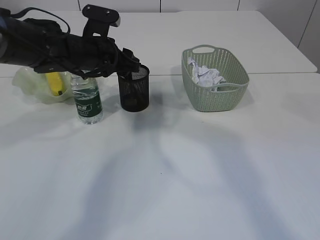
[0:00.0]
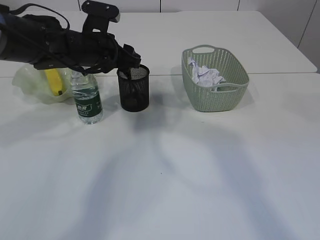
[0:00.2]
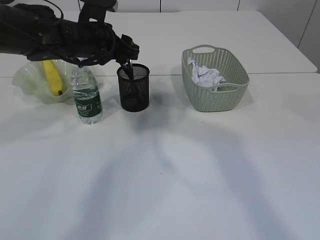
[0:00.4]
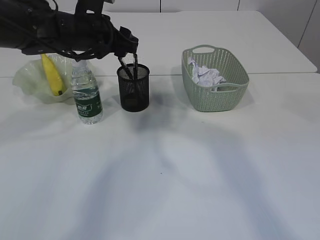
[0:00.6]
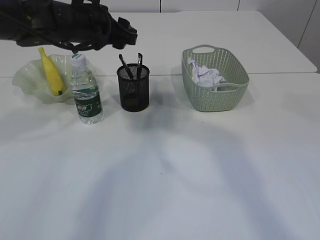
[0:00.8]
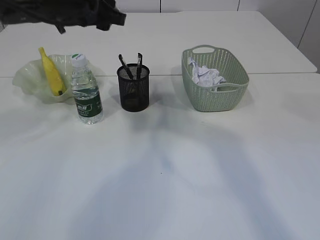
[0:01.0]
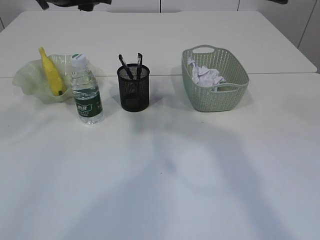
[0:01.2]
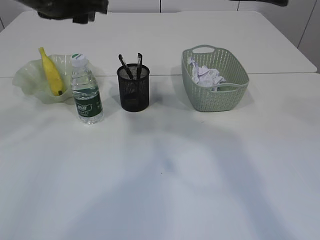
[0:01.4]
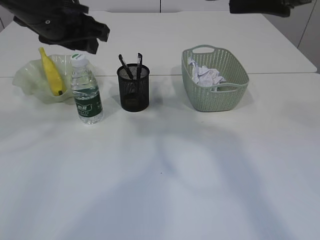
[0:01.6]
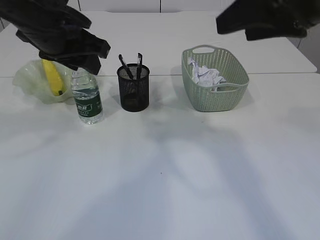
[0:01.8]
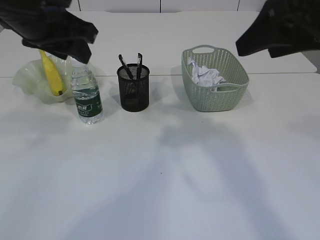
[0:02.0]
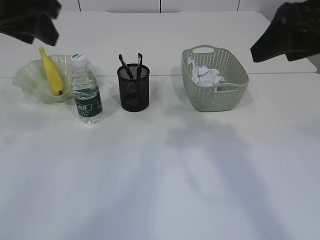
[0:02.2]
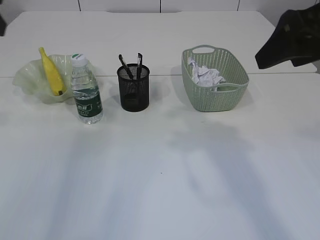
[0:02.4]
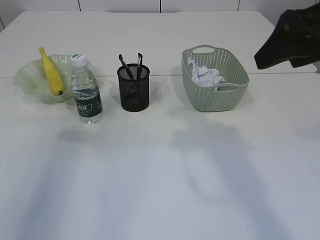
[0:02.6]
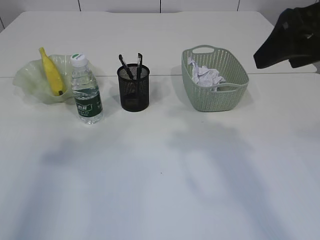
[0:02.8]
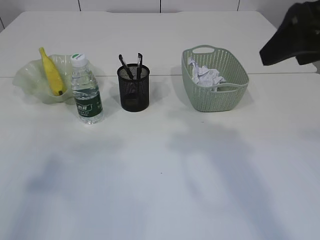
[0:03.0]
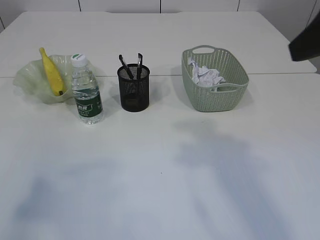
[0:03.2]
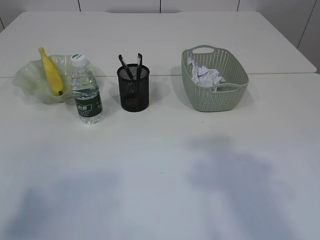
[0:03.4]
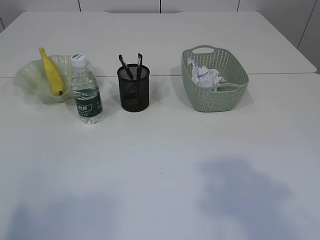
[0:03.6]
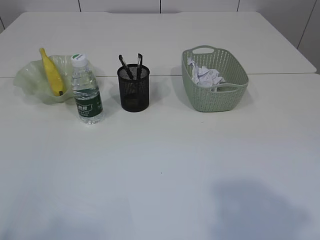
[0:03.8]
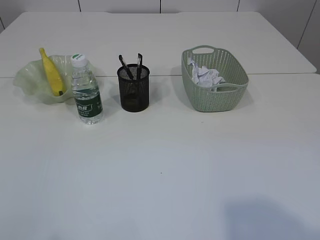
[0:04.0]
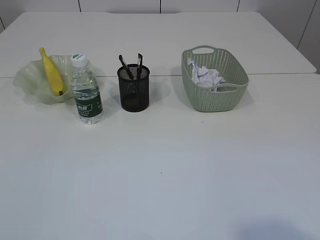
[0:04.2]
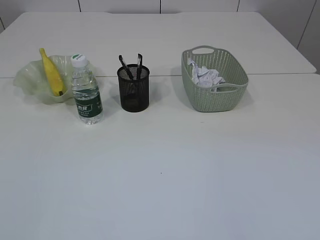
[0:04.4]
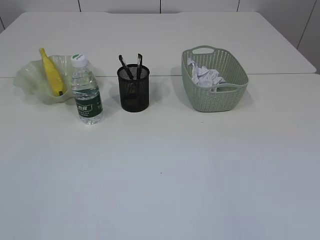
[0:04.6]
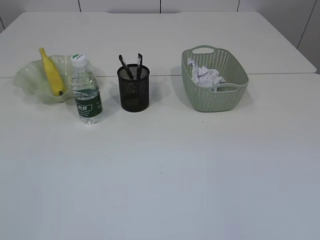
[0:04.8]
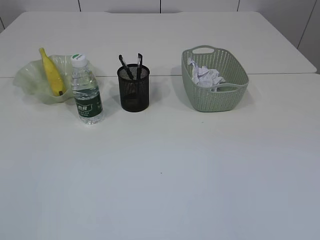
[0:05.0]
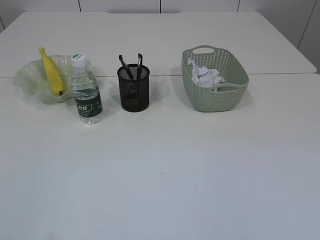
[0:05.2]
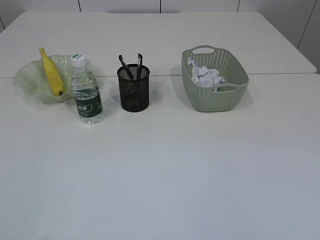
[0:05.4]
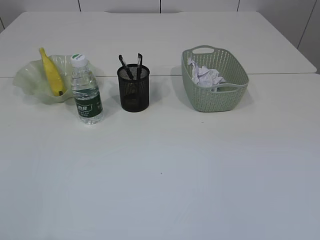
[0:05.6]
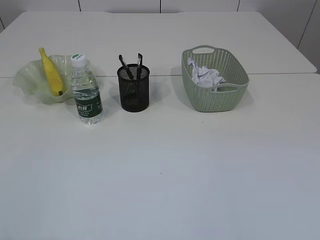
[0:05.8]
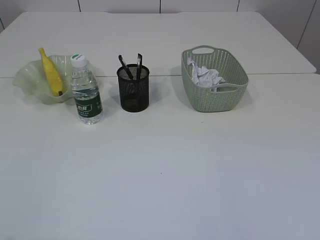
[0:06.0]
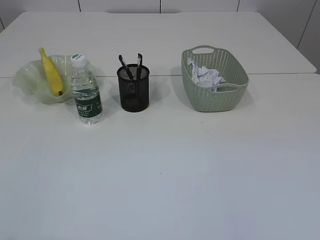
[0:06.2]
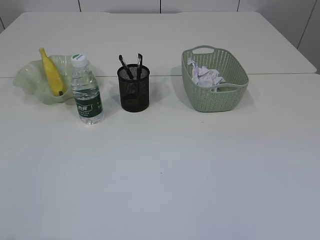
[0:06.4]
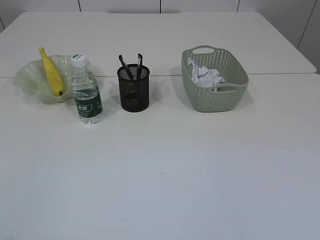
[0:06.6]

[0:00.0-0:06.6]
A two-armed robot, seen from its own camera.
0.0 to 1.6 s: The left gripper goes approximately 15 cm upward and backward.
1.6 to 3.2 s: The right gripper travels backward by about 5 cm. Meanwhile the left gripper is displaced backward and to the left by some 30 cm.
3.2 to 5.0 s: The right gripper travels backward by roughly 25 cm, while the left gripper is displaced backward and downward by about 15 cm.

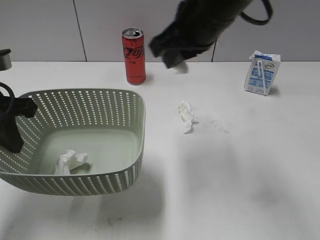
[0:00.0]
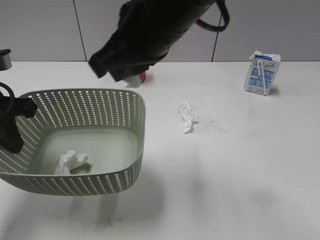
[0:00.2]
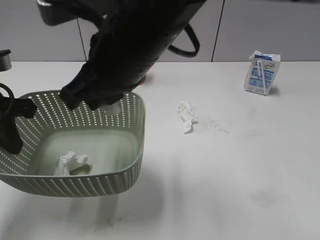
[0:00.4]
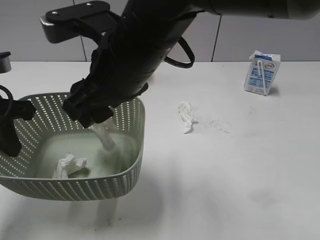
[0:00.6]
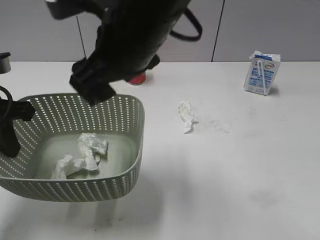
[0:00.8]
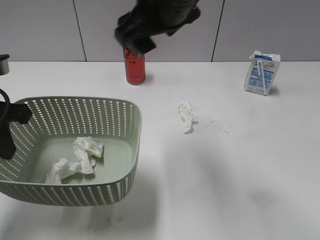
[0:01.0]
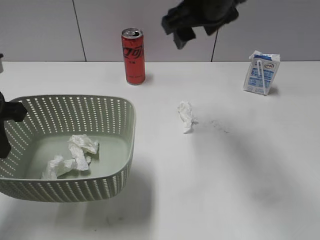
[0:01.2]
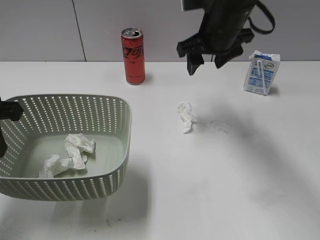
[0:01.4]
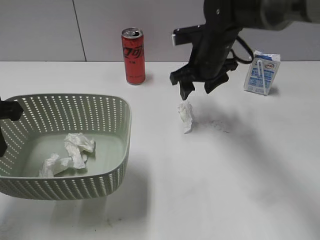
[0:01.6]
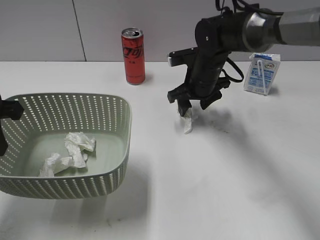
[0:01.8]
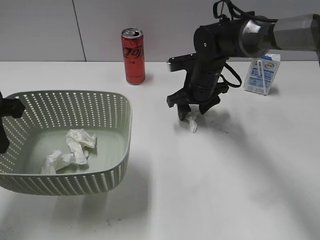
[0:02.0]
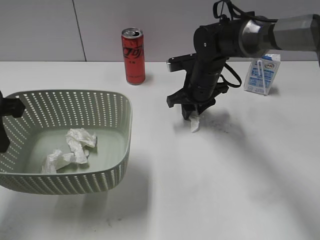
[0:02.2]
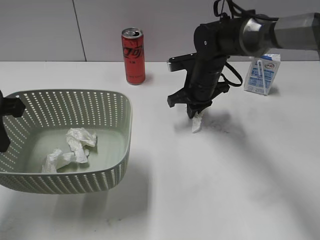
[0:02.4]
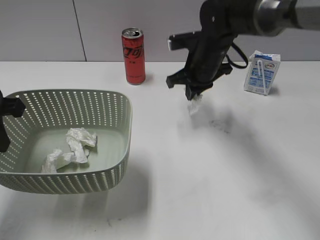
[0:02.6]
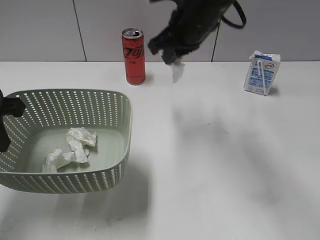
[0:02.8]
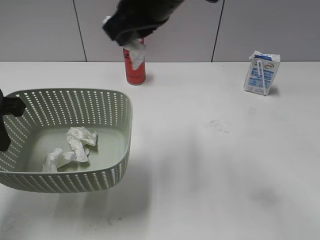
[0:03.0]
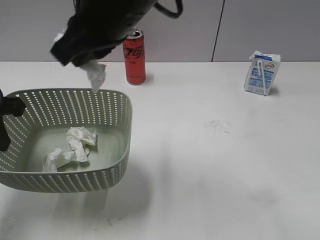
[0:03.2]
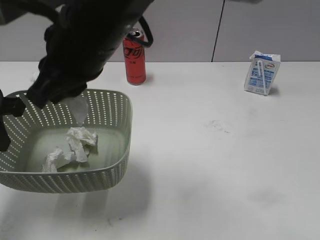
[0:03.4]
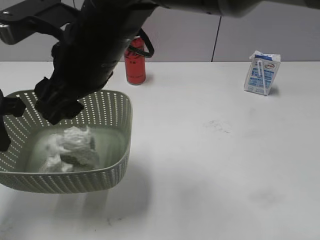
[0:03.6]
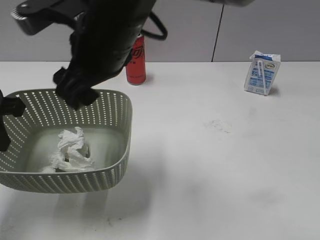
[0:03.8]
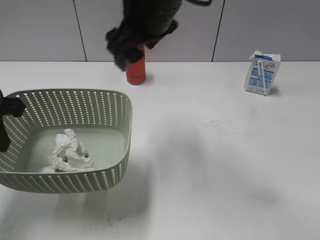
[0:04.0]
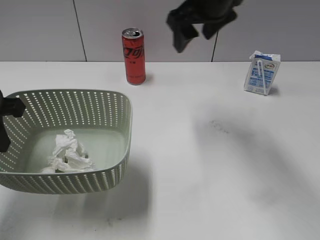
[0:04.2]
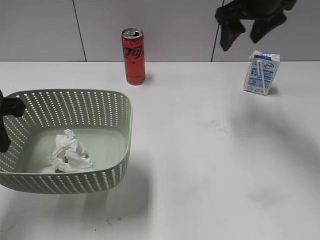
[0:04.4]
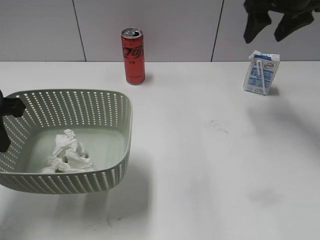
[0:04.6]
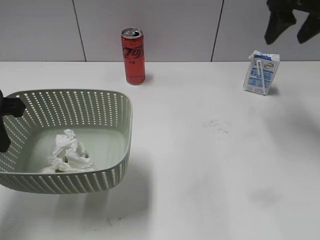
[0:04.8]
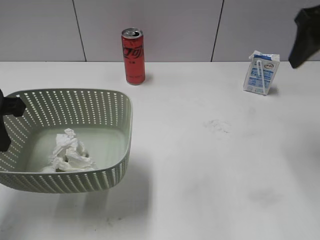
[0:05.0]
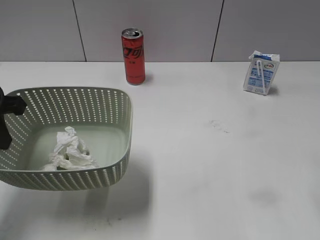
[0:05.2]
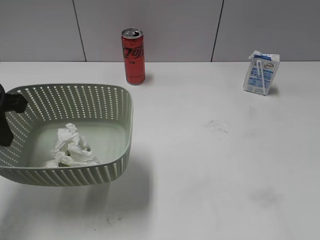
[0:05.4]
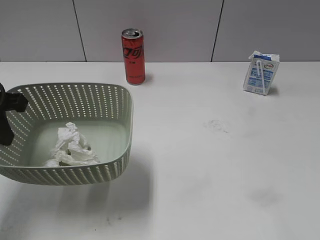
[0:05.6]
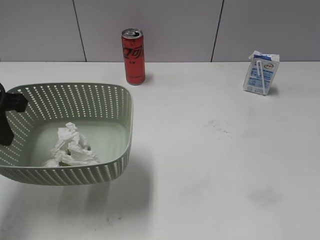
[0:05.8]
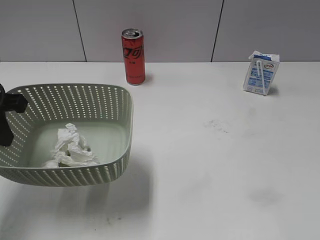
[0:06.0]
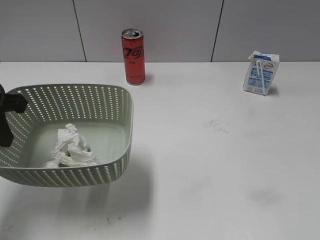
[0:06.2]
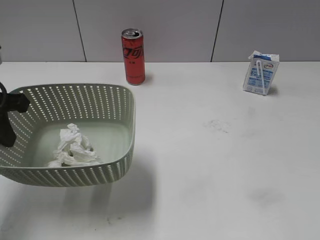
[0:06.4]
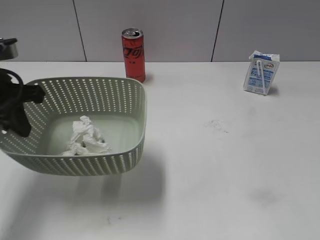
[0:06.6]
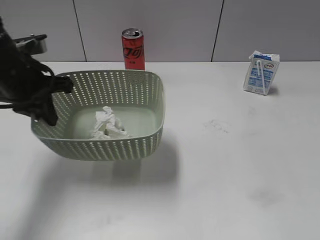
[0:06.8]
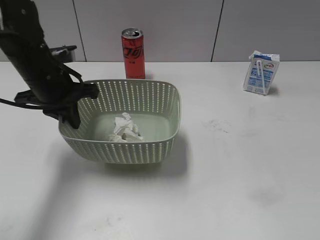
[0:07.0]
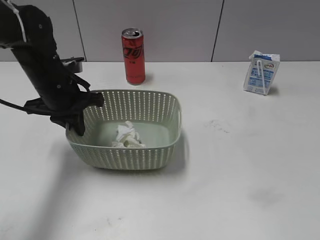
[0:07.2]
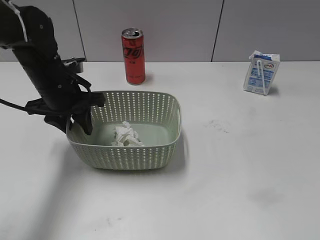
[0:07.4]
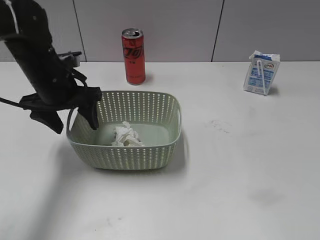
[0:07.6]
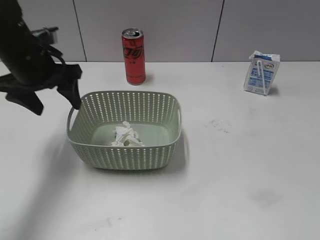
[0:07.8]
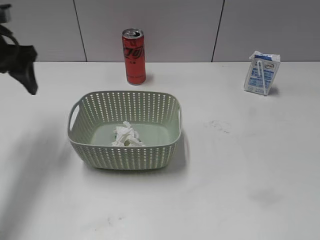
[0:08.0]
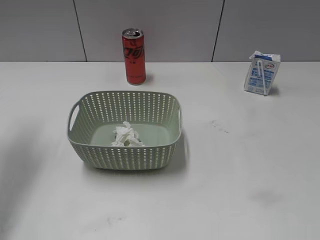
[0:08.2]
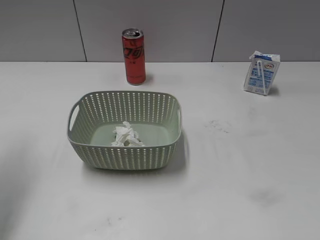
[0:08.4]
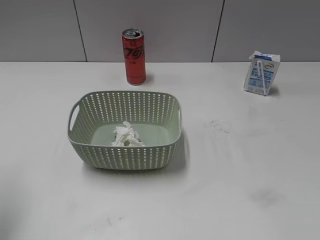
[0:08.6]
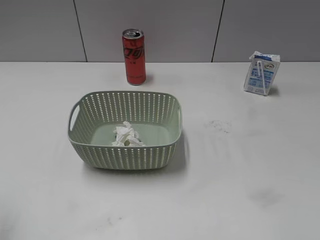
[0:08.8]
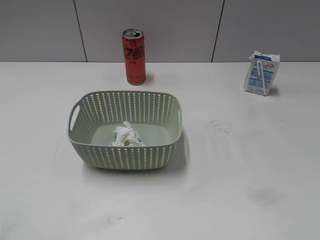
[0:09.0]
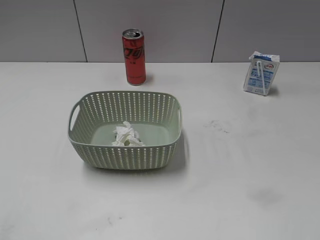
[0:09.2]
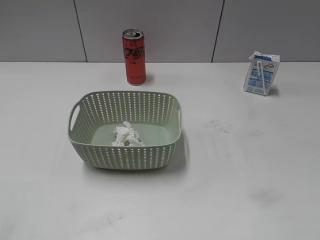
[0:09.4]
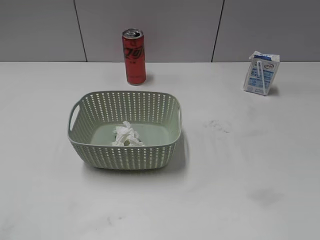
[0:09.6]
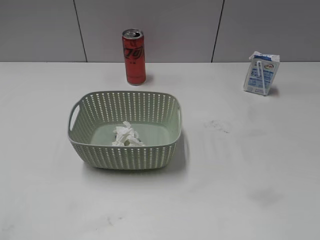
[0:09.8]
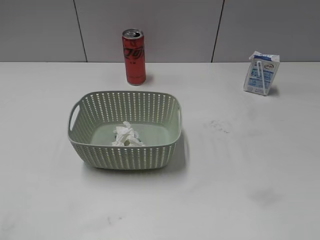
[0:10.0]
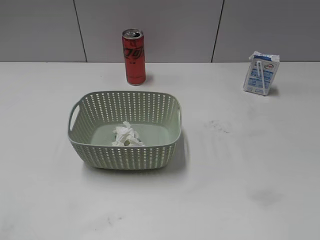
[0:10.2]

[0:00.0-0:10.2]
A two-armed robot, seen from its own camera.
Step, 0.0 to 0.8 s: Place the waste paper in the basket with right gripper.
Step, 1.0 to 2.4 s: Grasp the waste paper with right gripper.
Step, 2.6 to 3.8 s: Place the waste paper in the basket with right gripper.
Step, 4.0 to 7.8 s: Place the basket on the table with left gripper.
0.0 to 1.4 s: The right gripper goes approximately 10 cm forward and downward, and opens.
1.4 to 3.0 s: The right gripper goes some 15 cm to the left, upward and backward, and closes.
3.0 to 4.4 s: The right gripper travels to the right and forward by roughly 15 cm, and opens.
4.4 to 5.8 s: The right gripper travels backward and to the right by approximately 40 cm.
5.8 to 7.2 s: The left gripper goes some 15 cm forward, to the right and downward, while the right gripper moves backward, approximately 5 cm.
7.2 to 8.8 s: The left gripper is displaced backward, upward and to the left by some 30 cm, and opens.

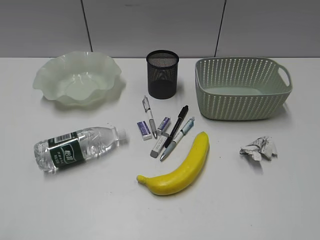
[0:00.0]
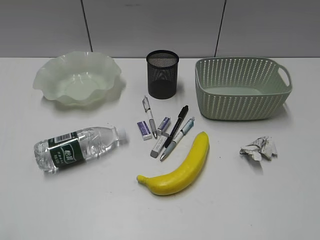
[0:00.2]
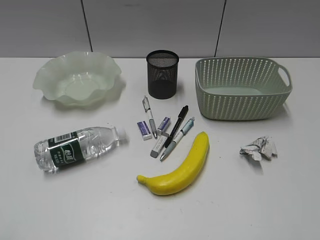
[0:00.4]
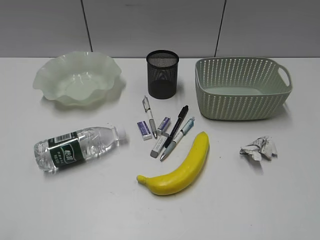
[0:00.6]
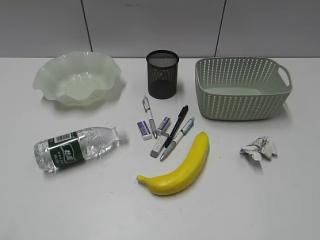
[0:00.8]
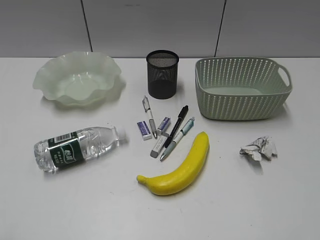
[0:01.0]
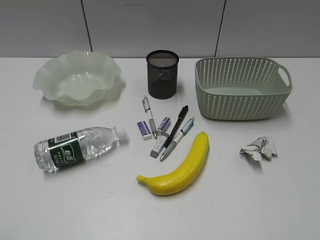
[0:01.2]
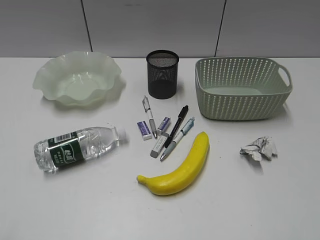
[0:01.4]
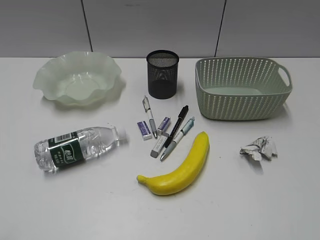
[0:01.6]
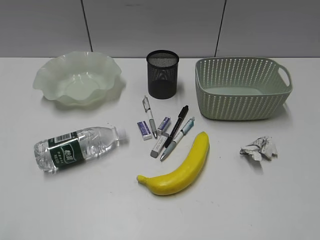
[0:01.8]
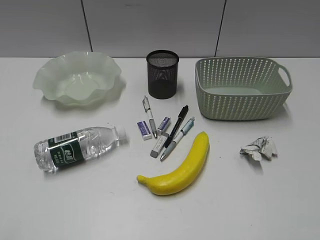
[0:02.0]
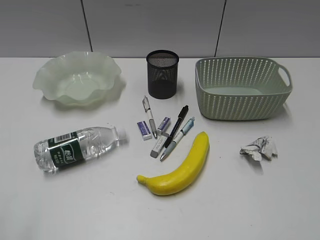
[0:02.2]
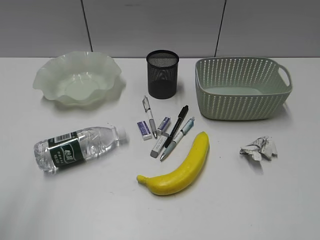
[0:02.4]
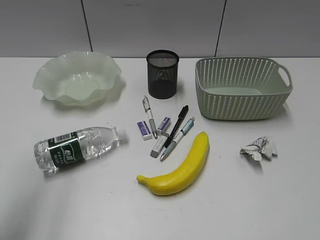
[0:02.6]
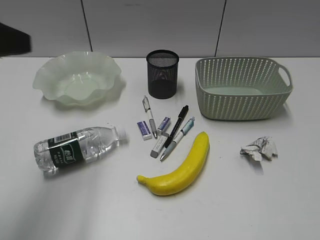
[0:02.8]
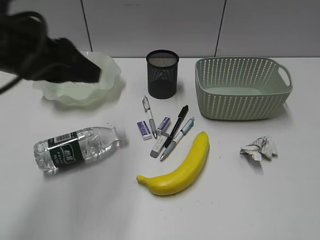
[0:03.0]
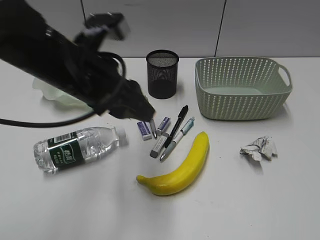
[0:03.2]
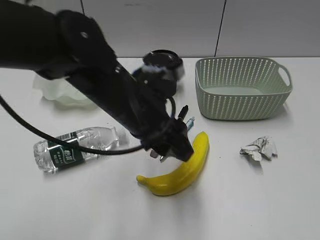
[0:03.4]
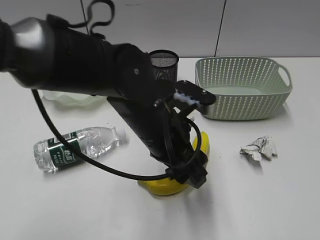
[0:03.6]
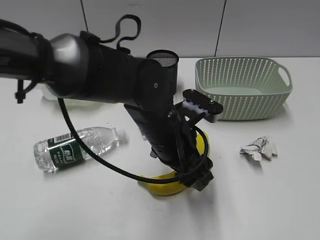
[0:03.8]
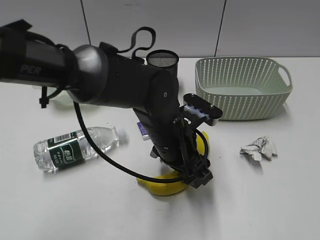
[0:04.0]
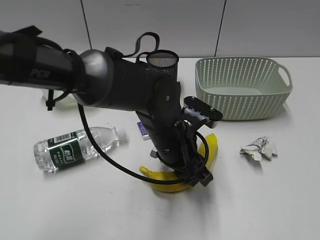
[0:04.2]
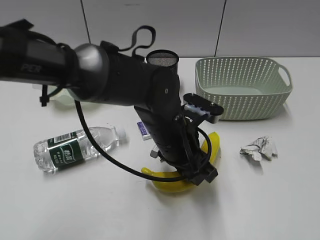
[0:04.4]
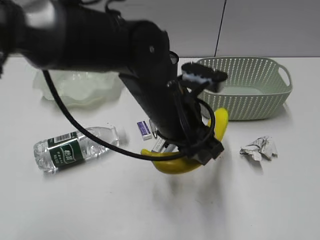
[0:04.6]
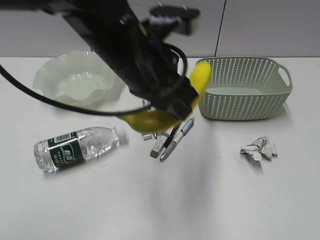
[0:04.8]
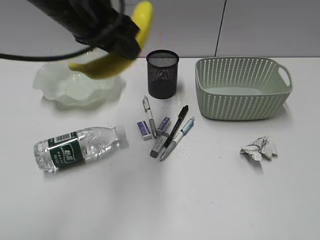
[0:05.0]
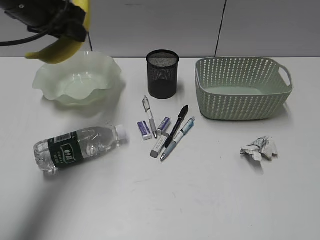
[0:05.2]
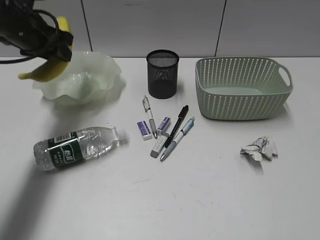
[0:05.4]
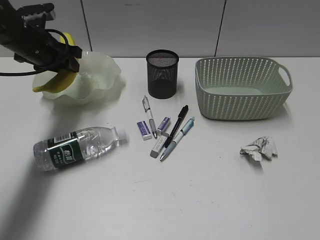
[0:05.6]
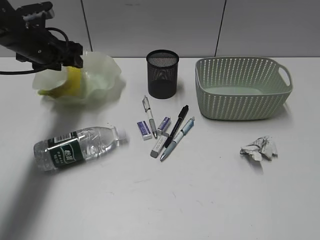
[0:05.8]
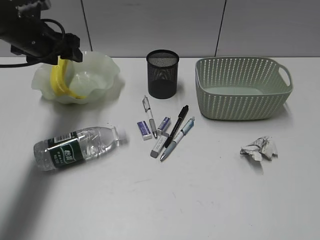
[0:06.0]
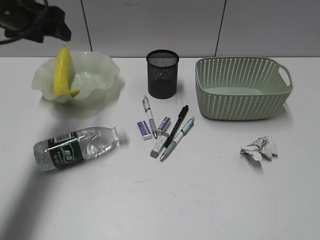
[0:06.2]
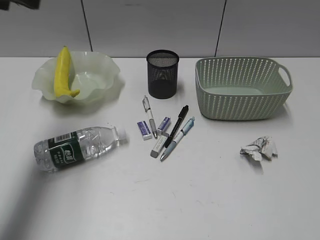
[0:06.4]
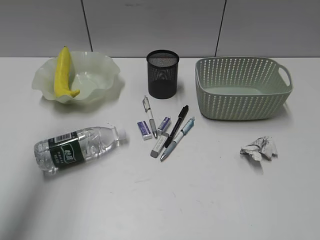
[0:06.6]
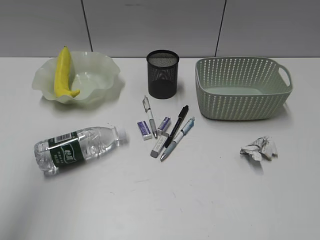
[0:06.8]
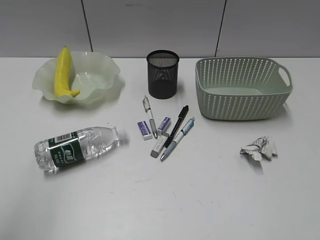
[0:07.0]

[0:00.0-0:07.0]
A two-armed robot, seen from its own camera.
Step, 1.8 to 4.2 s: Grasp the banana with left gripper.
Step, 4.4 to 6.0 s: Place the banana in the plate with left gripper.
1.4 to 2.8 s: The left gripper goes some 20 cm forward.
2.8 to 4.2 s: The left gripper shifts some 35 cm to the right and downward, and opens, then closes again.
4.2 to 5.6 s: The left gripper travels to the left and forward by approximately 30 cm.
5.6 to 7.0 s: The left gripper moves backward and upward, roughly 40 cm, and opens, then closes again.
